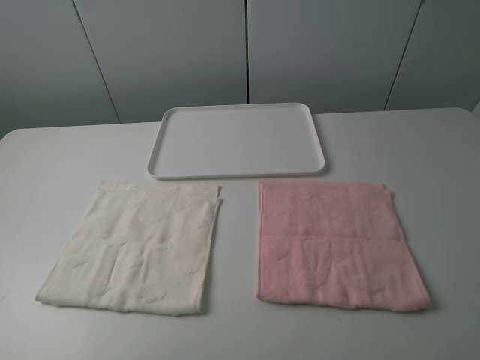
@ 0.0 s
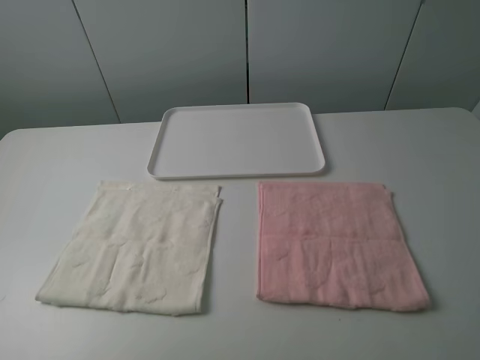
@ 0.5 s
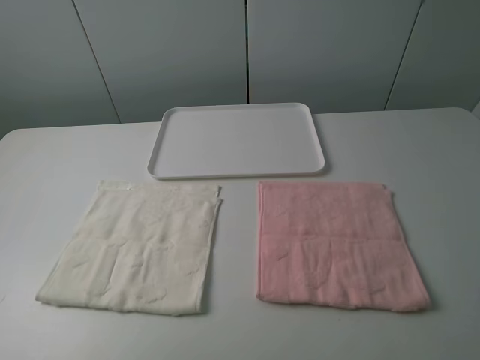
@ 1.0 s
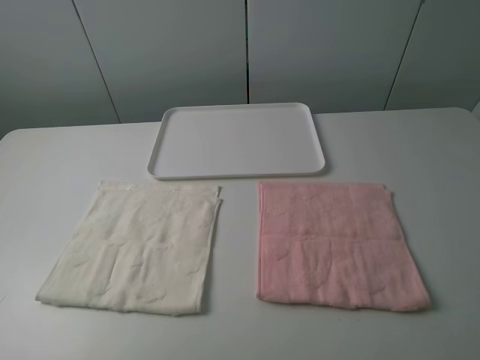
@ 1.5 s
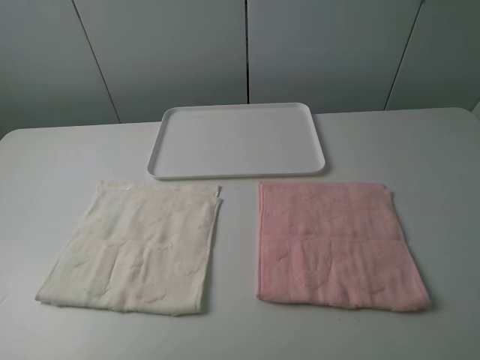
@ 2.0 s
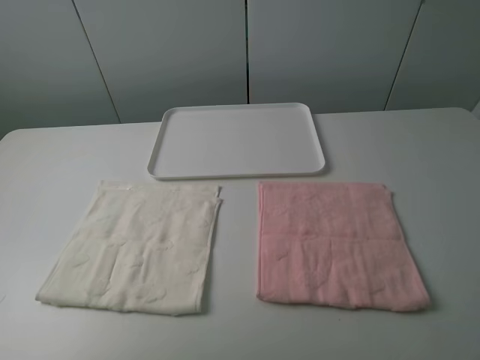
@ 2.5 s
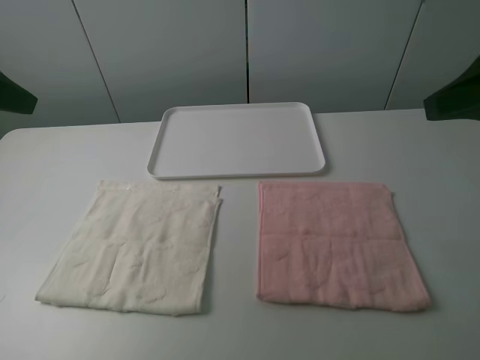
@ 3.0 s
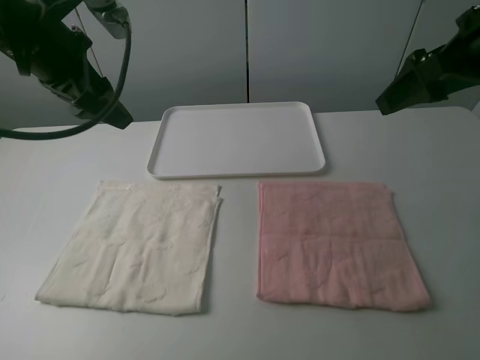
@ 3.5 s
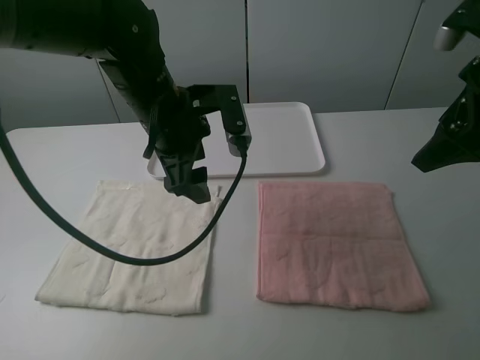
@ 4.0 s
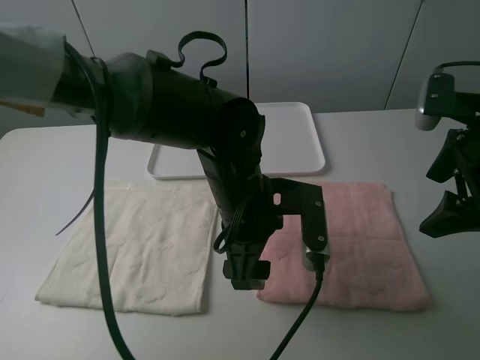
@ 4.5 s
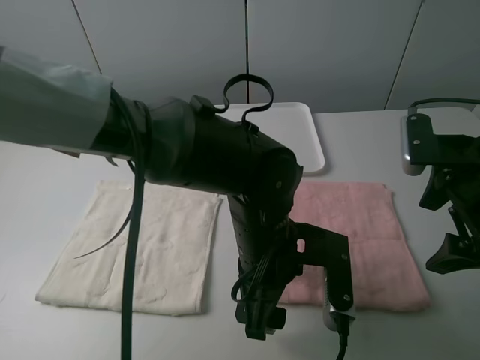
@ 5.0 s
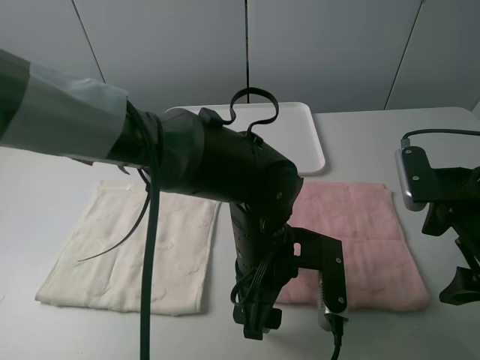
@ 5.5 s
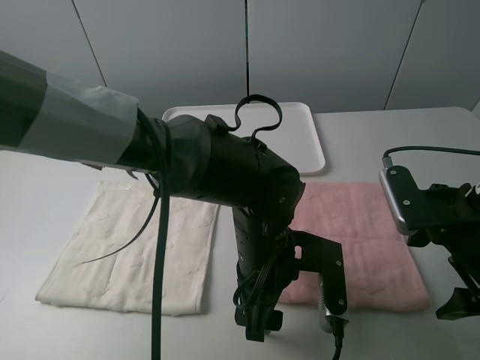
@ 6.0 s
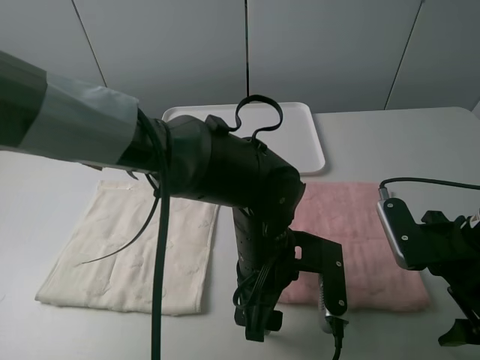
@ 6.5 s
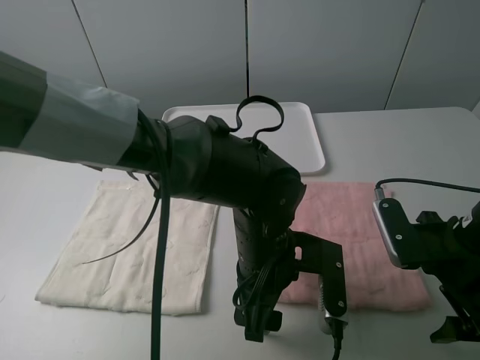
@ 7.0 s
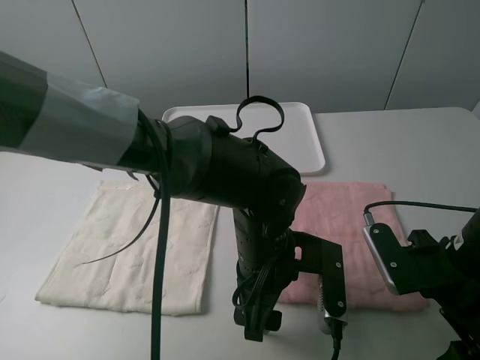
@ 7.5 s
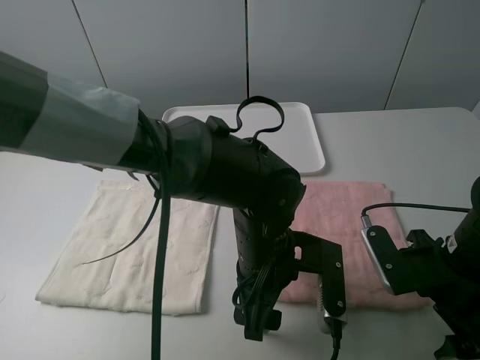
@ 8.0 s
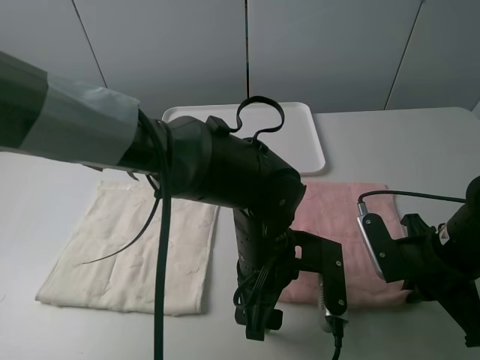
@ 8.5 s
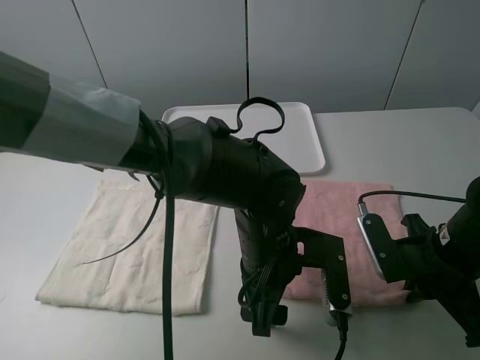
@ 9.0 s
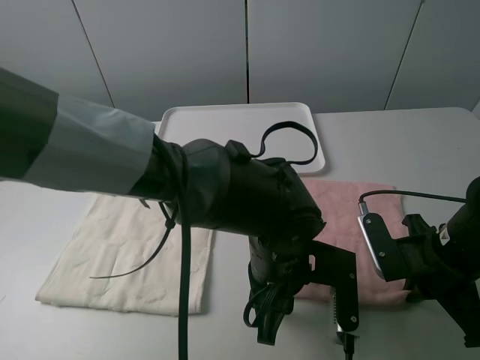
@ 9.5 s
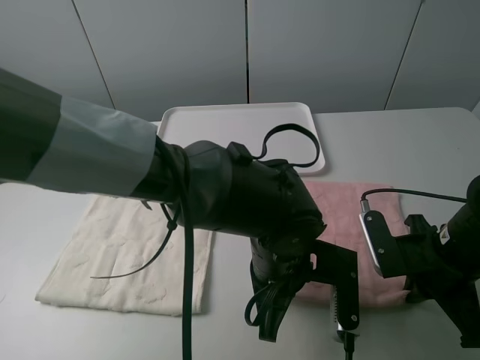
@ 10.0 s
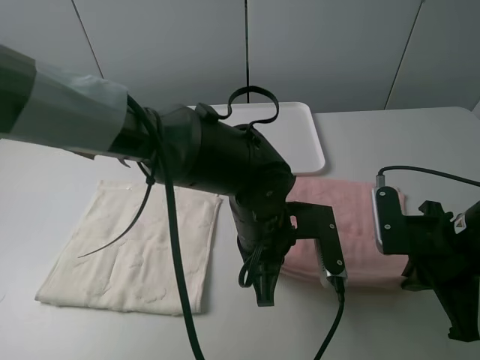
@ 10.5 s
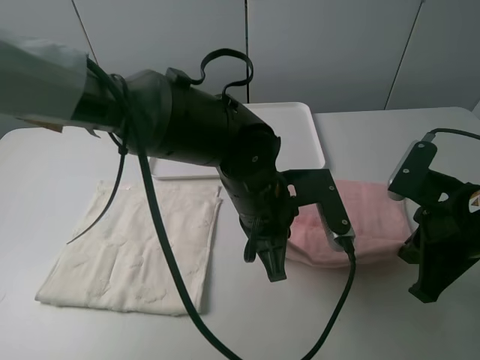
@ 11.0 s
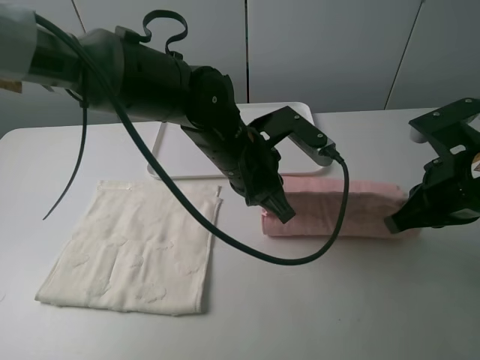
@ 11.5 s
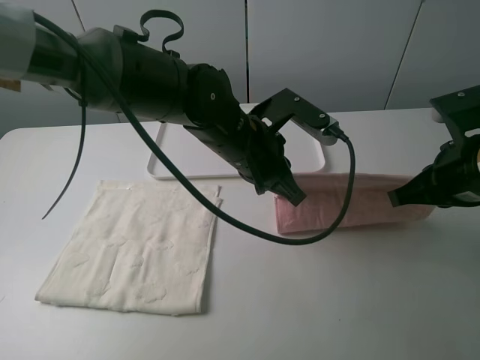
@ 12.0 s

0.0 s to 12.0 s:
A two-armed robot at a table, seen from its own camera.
Task of the whole recording: fold one of the towels by two grippers and place it on the tray,then fold another towel by two grippers and place it on the folded towel.
Step, 0.0 to 9.5 s: Grasp the pink towel with the left gripper.
0.0 to 2.0 s: The two grippers keep their place.
2.0 to 4.0 s: The right gripper heads forward, covering some 25 cm. Meanwhile the left gripper moves forward and to the right, approximately 40 cm.
4.0 to 6.0 s: The right gripper heads downward and backward, covering approximately 15 cm, while the left gripper shifts approximately 20 cm backward, to the right and downward.
6.0 to 8.0 s: The right gripper moves downward, roughly 5 cm.
8.0 to 10.0 s: The left gripper closes up; the right gripper closes its fingers.
10.0 to 12.0 s: The right gripper travels upward by roughly 10 cm; the left gripper shifts about 15 cm forward and upward.

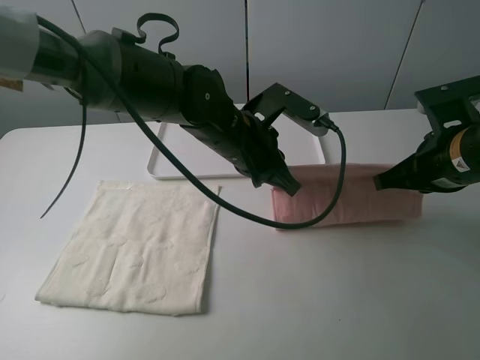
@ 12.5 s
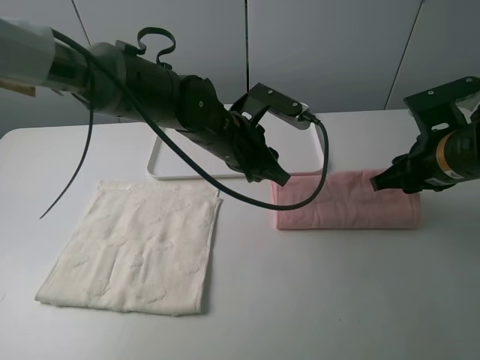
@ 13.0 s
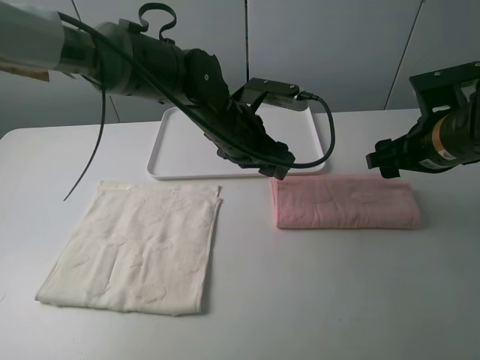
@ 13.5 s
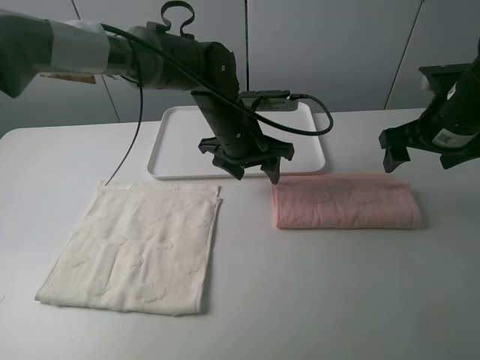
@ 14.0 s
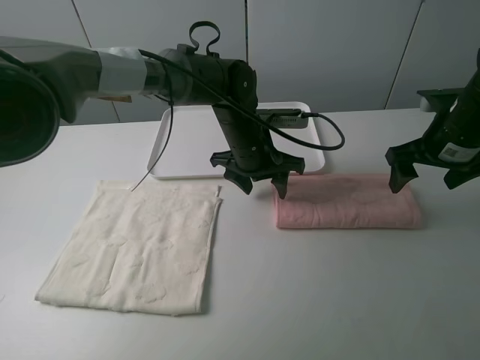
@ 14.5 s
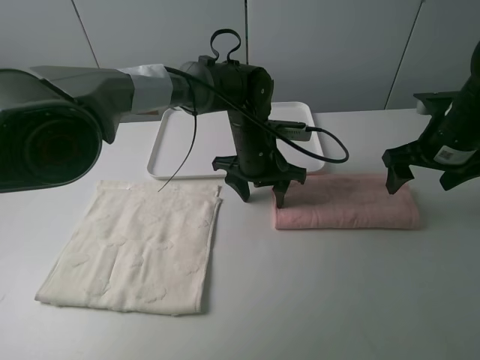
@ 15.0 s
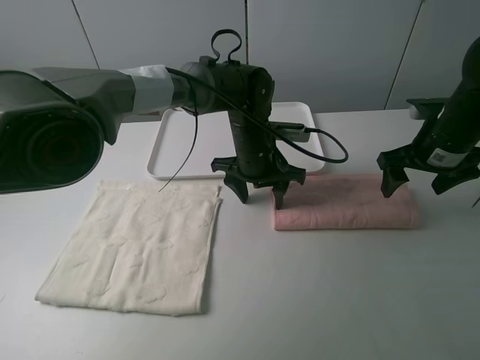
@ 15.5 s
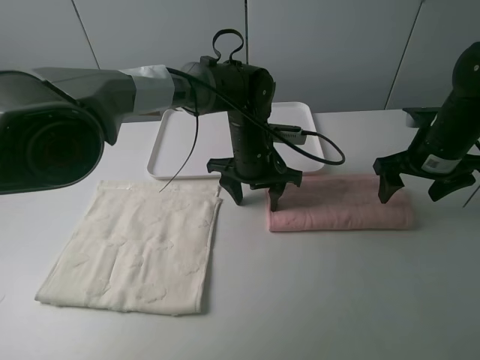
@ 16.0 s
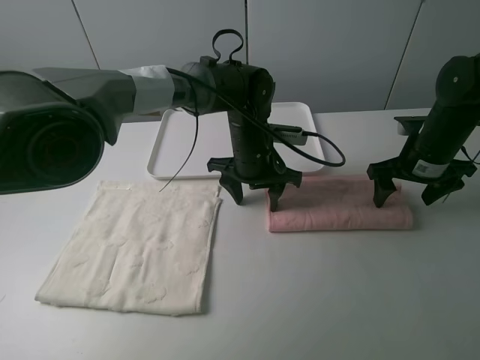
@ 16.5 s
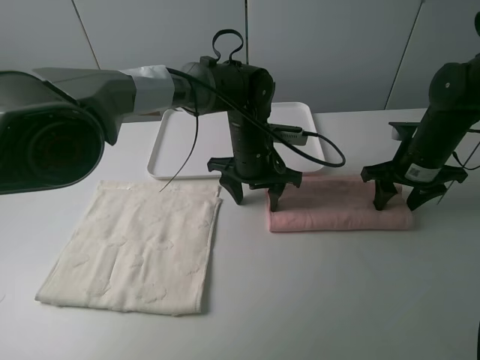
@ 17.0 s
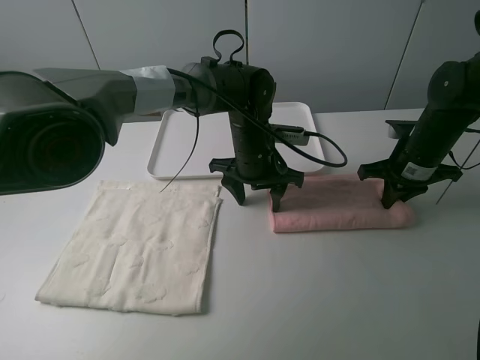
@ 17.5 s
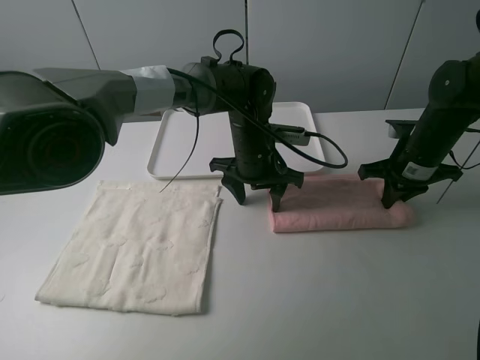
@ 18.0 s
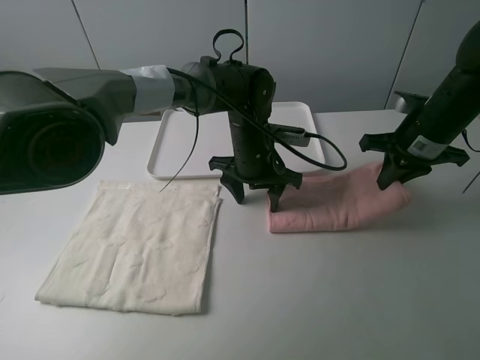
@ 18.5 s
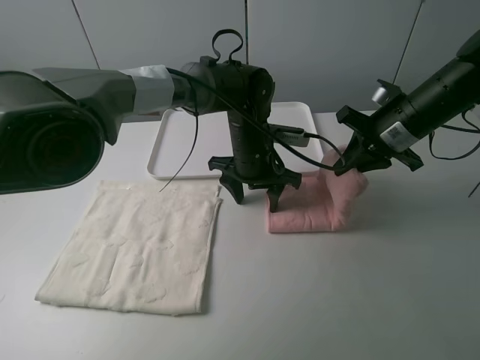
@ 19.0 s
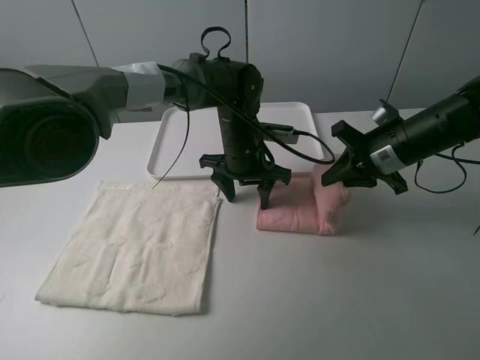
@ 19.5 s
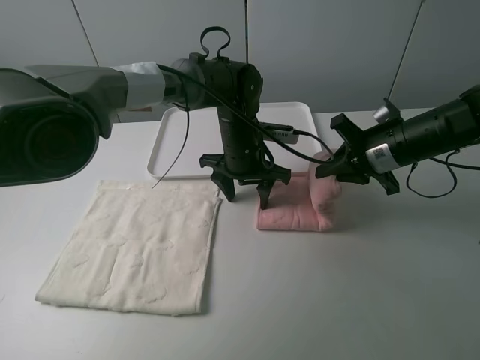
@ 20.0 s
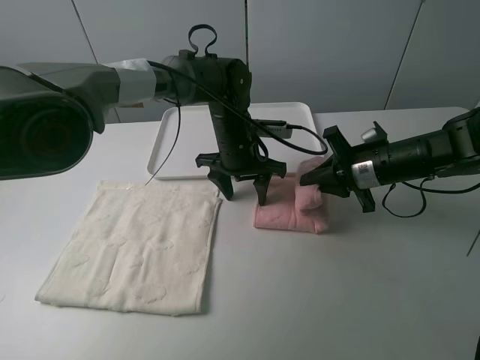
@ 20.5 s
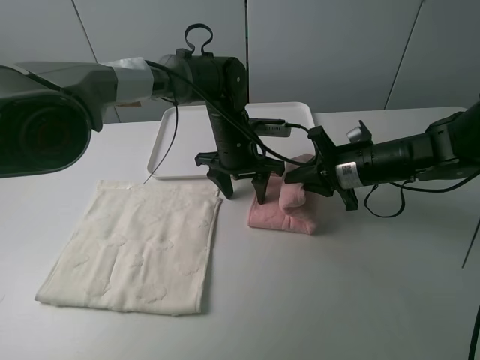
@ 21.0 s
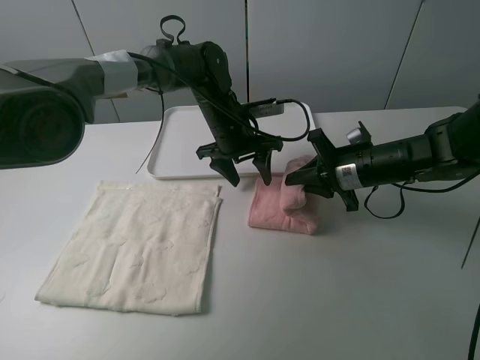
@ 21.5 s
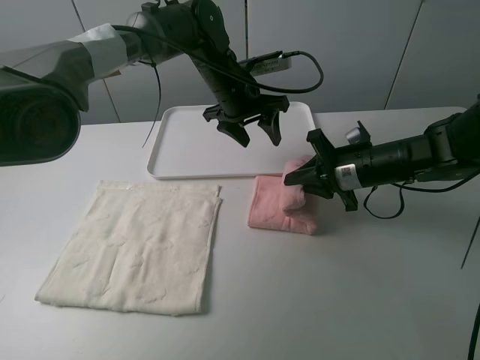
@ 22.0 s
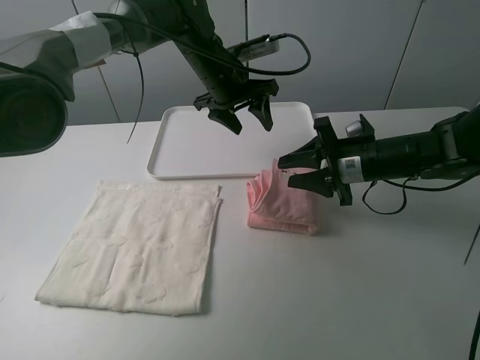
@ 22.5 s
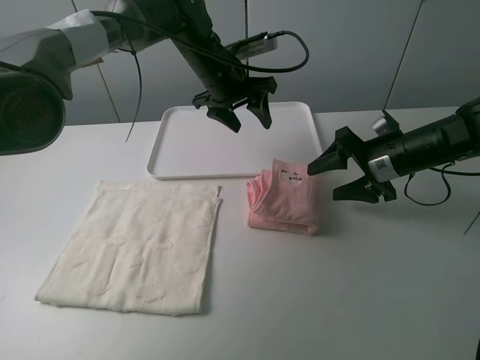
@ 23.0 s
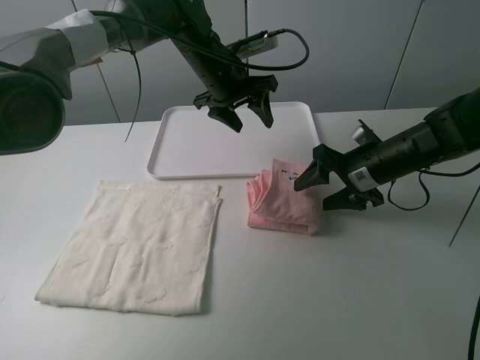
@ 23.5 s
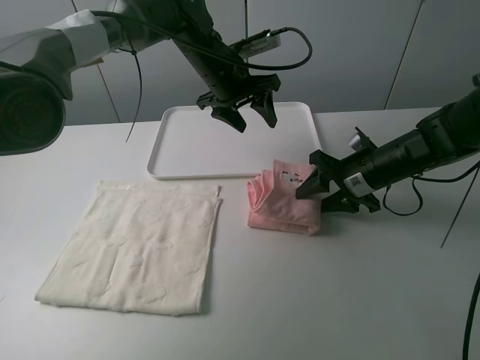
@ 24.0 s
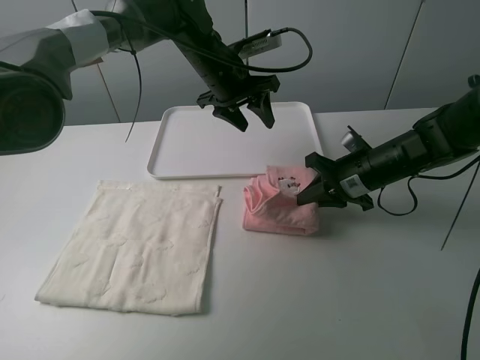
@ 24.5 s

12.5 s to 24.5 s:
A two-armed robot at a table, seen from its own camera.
Task of the whole recording: fold one of the towels by two grippers and place it on the tray,then fold another towel by two grippers and place it on the folded towel.
Step, 13.5 to 15.5 s: Press the pink towel with the left gripper.
Step, 16.0 to 17.5 s: Grasp the pink towel with the right gripper.
Step, 18.0 to 22.0 s: Fold the pink towel from right to left with right gripper.
Step, 22.5 to 24.0 s: Grasp the pink towel with the right gripper.
12.5 to 14.5 s: The two grippers go approximately 5 cm forward. The left gripper opens up. Meanwhile the right gripper opens its fingers.
14.5 to 16.5 s: The right gripper shifts roughly 5 cm downward.
16.5 to 18.5 s: The right gripper moves about 5 cm, and closes up.
18.5 to 20.5 s: The right gripper goes some 5 cm downward.
20.5 to 22.5 s: The left gripper is displaced upward and forward by roughly 10 cm; the right gripper opens.
22.5 to 24.5 s: The right gripper closes up.

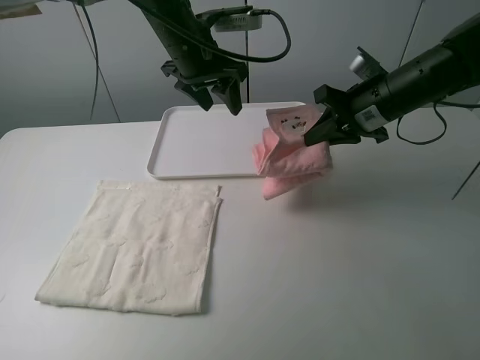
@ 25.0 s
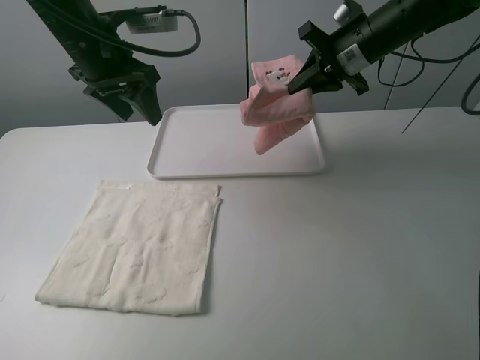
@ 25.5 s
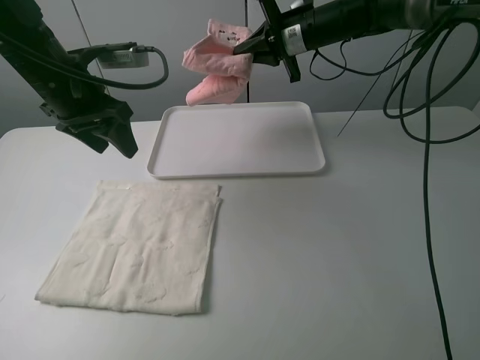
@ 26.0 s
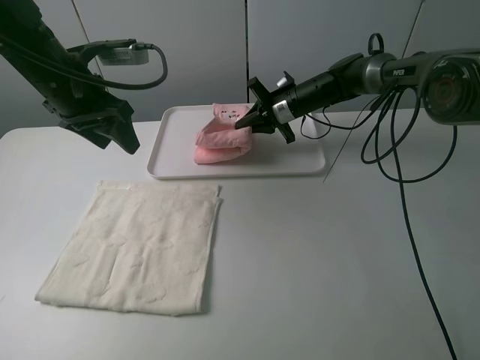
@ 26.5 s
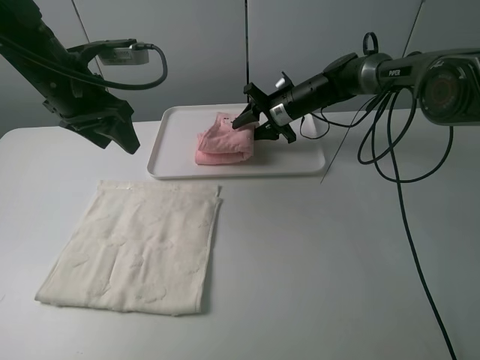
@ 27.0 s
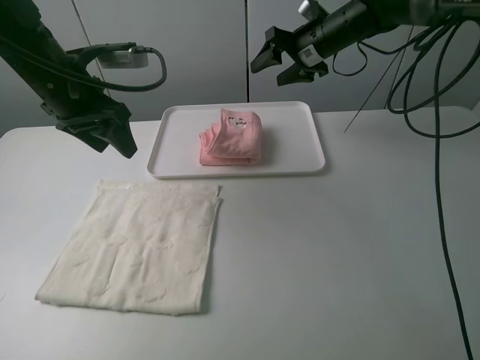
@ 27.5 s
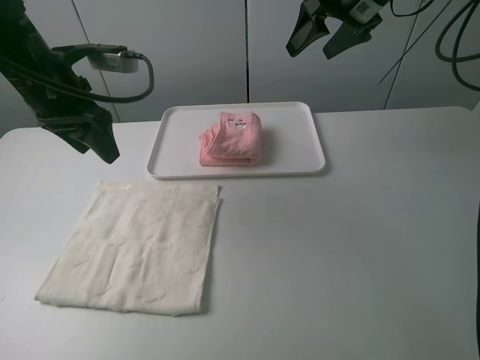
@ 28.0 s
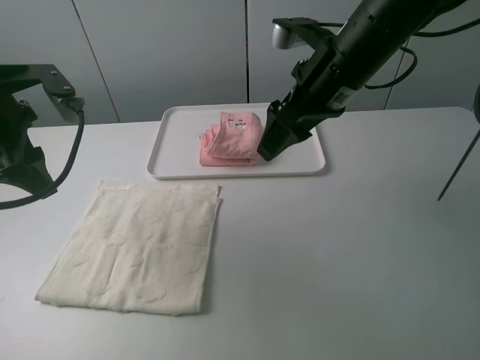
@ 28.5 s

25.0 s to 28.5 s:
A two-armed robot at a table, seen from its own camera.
Task of the whole recording: fold one of the towels by two grippers and place it on the tray,then fold another towel by two grippers and place it on the folded towel.
Step, 25.0 to 27.0 s: Move the pink towel to the plate with the right gripper.
25.0 to 27.0 s: The right gripper travels forward, downward and to the left by about 20 cm, and opens up. The left gripper travels to the left and backward by about 15 cm.
27.0 to 28.5 s: The left gripper is displaced backward and to the left by about 10 cm; the right gripper travels backward and upward by approximately 25 cm.
